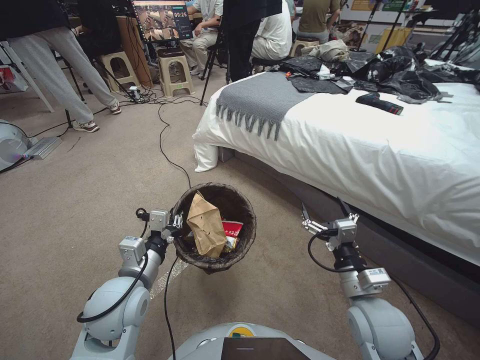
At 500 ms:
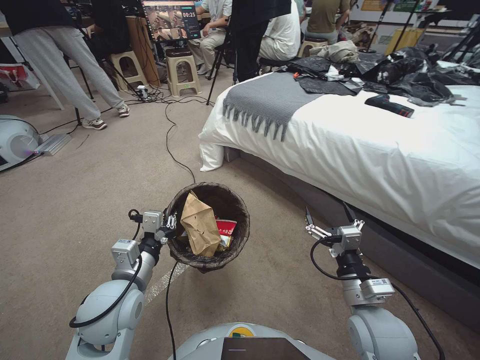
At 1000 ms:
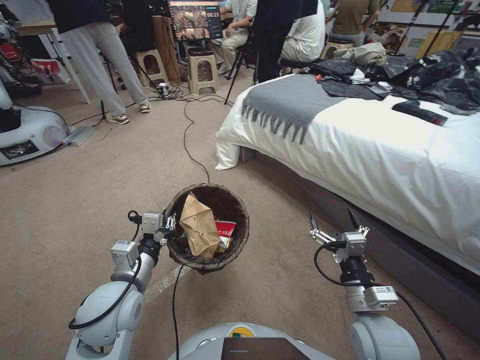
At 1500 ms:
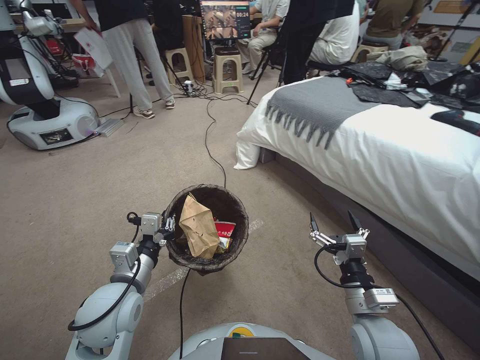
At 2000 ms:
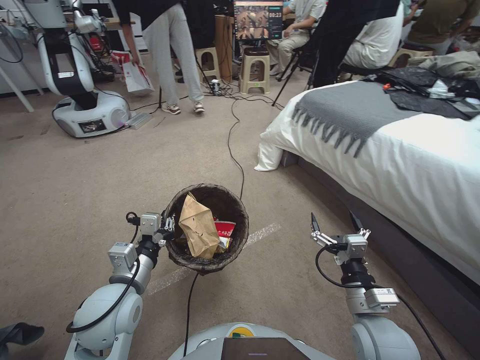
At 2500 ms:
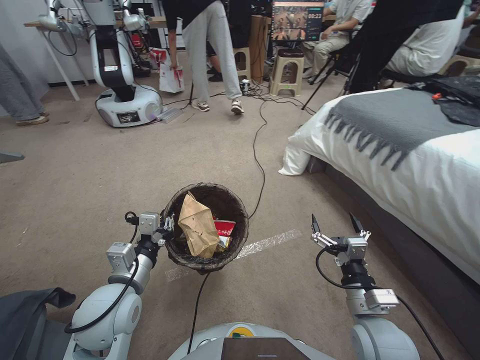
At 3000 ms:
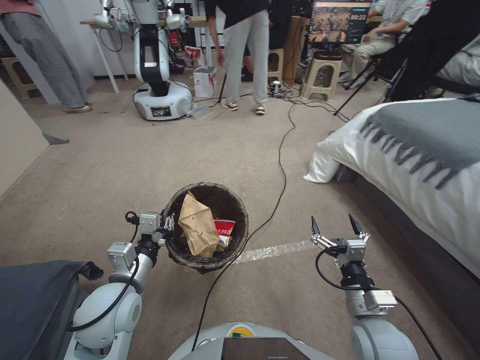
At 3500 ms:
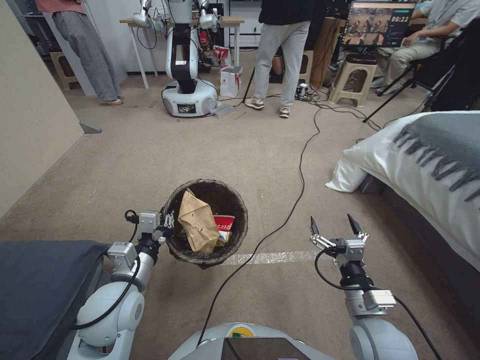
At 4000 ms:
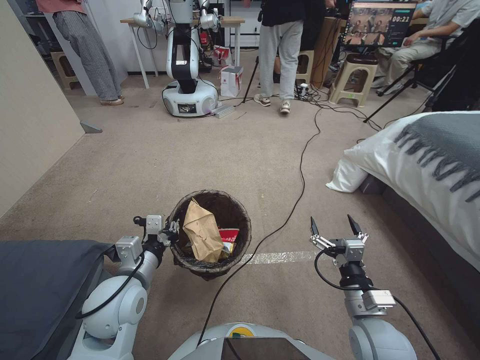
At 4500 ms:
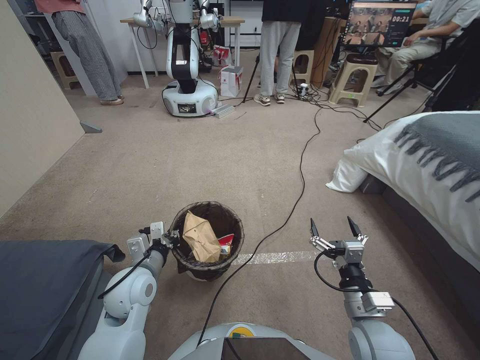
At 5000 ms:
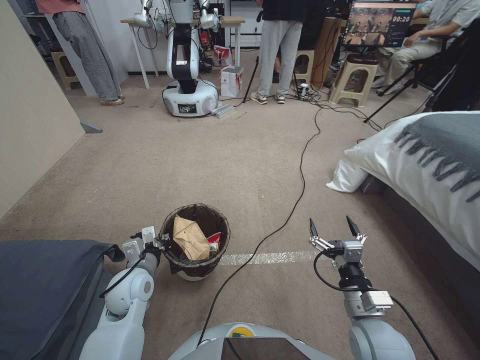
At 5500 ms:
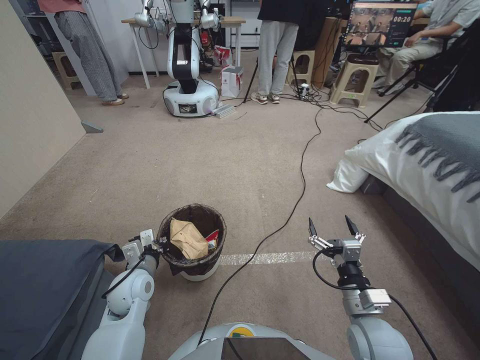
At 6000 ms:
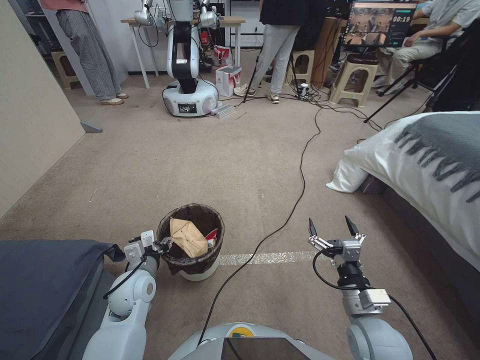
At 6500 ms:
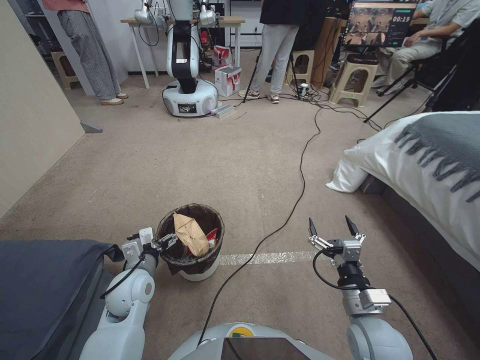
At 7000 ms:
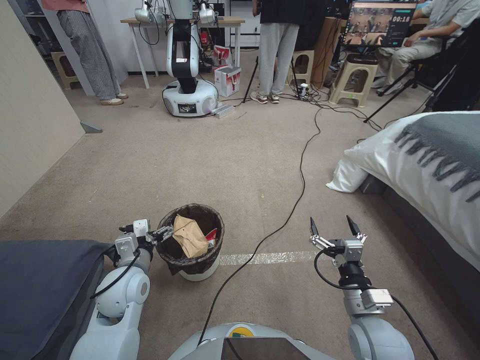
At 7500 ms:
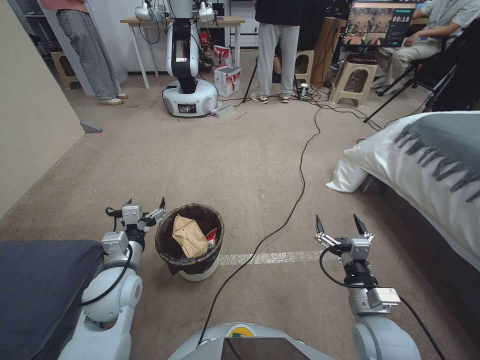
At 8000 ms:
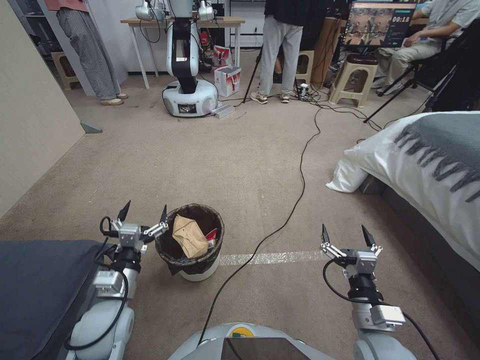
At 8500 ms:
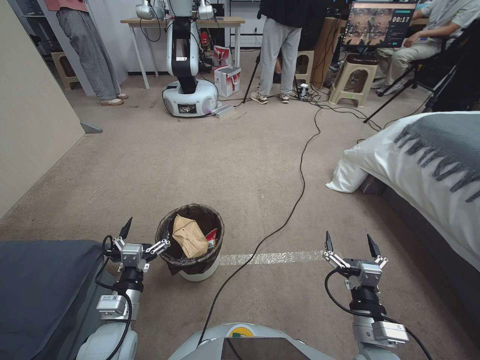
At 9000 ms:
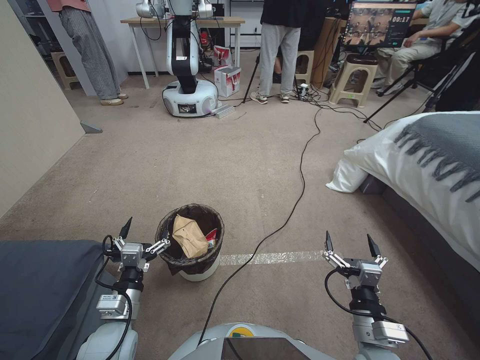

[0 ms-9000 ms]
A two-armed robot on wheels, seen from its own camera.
Task of the whole recording: Pick up the trash bin, then pick up the garbage from the floor and place it into the trash bin.
2000 ms to 4500 ms: The left gripper shifts by some 5 cm.
4500 ms to 7000 ms: The left gripper opens up.
7000 ms to 9000 ms: The left gripper heads backward, covering approximately 10 cm.
